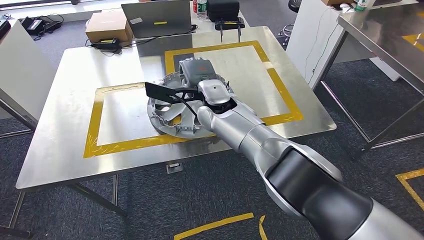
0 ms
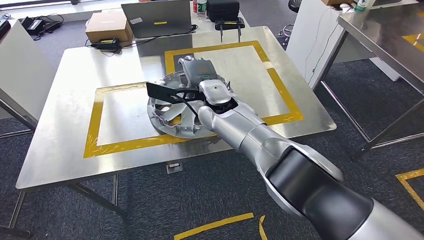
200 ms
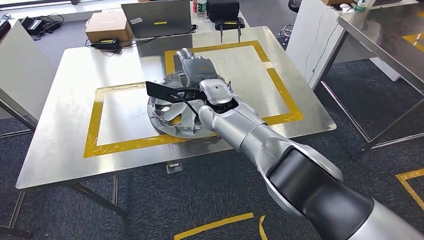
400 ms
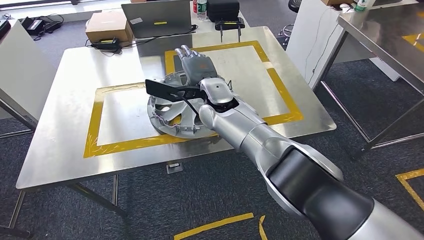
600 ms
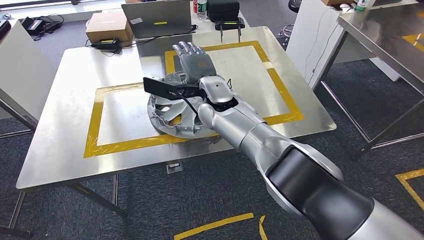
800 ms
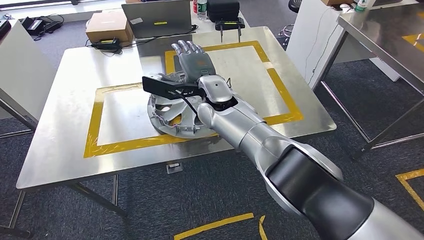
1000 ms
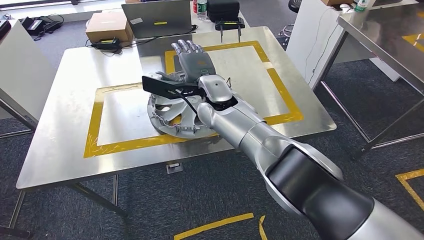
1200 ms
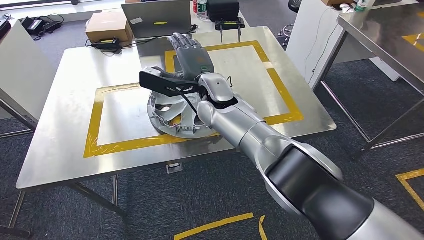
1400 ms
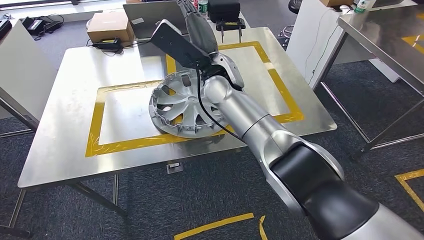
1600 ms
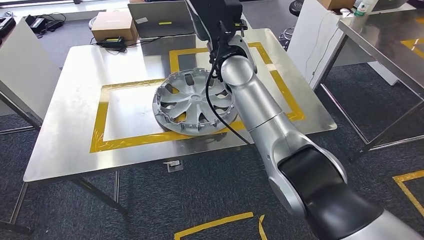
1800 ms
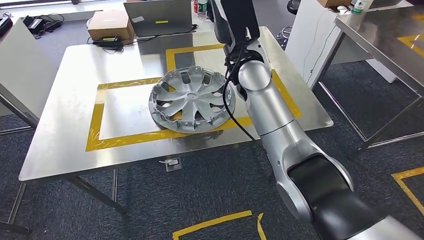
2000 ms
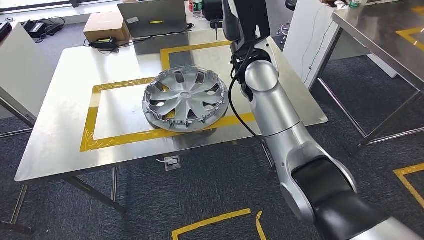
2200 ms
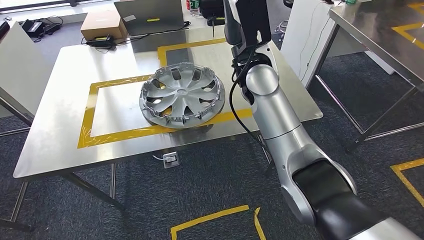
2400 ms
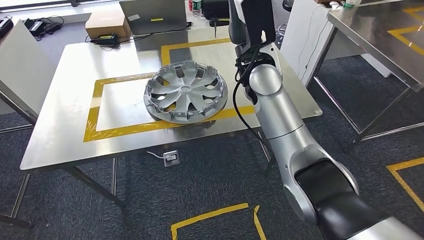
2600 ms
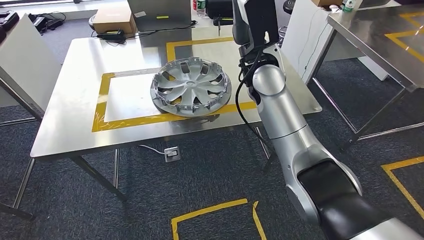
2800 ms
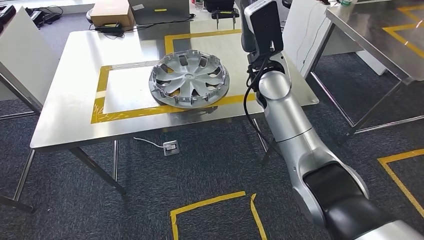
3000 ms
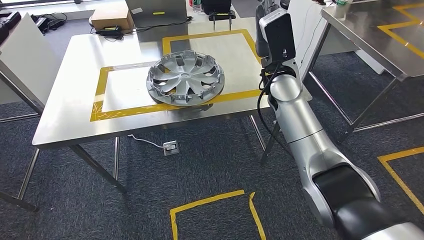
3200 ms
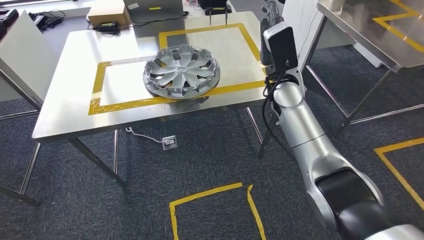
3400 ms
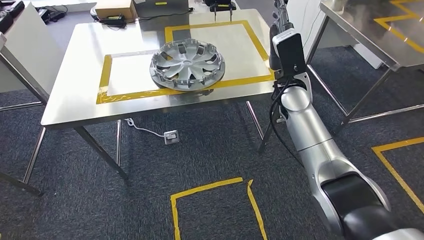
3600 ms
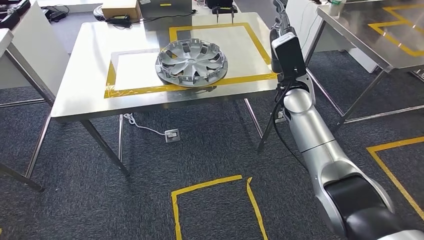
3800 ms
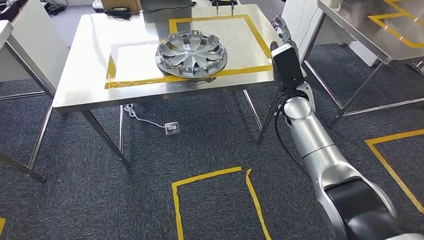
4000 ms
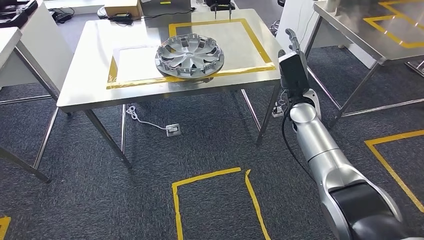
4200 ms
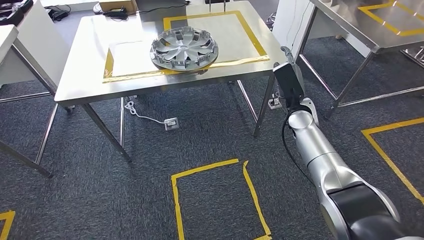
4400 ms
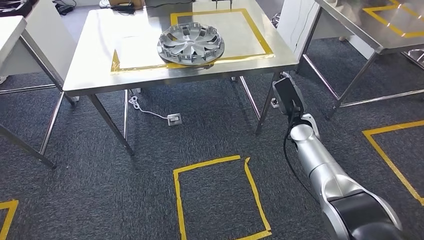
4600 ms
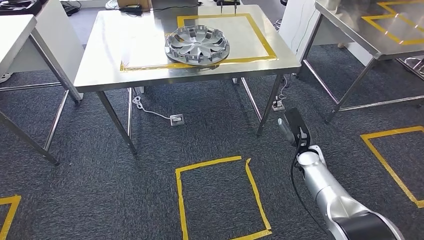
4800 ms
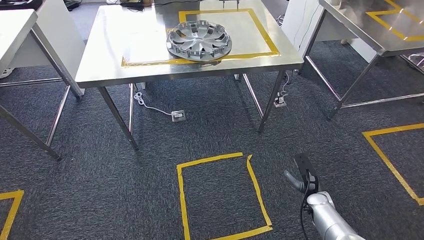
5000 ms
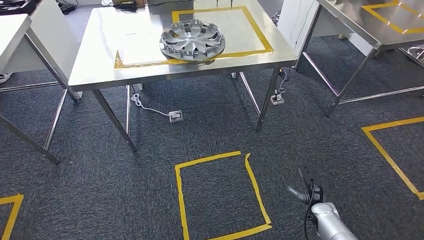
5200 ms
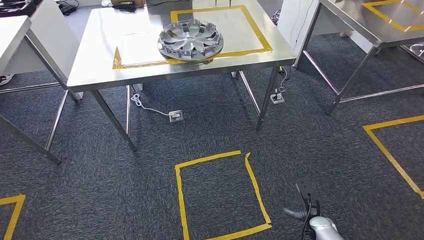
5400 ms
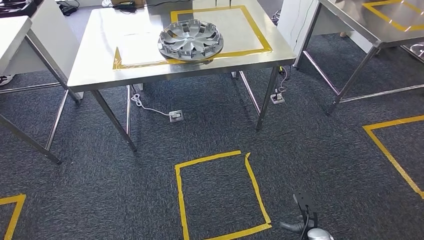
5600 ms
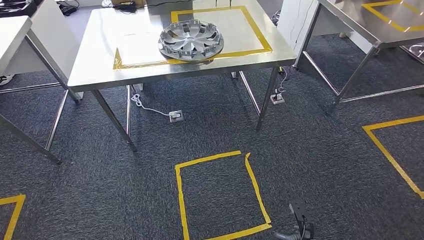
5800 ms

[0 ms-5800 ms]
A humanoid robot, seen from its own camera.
Step, 0 ms to 2600 ms: Insert the large material into the corresponding slot on the workbench.
Step, 3000 ms to 5600 ms: Move to the initial position of the shelf.
0 ms to 1400 ms: There are only small adjustments of the hands.
